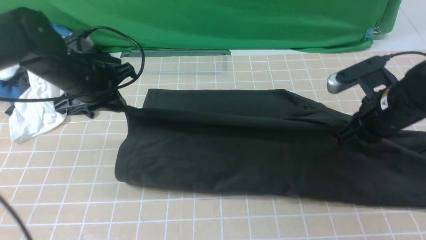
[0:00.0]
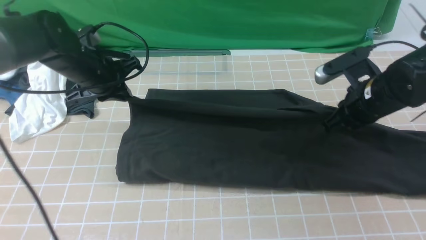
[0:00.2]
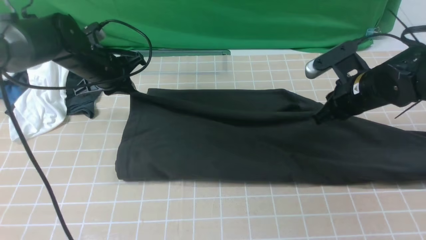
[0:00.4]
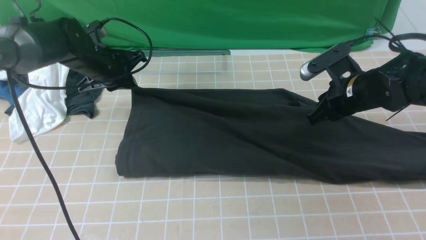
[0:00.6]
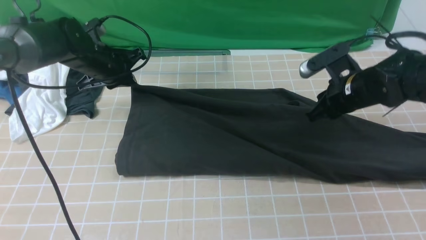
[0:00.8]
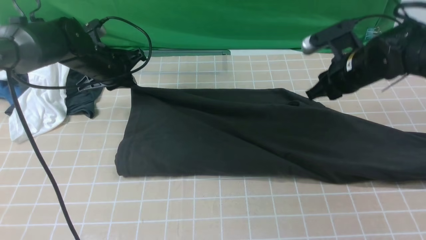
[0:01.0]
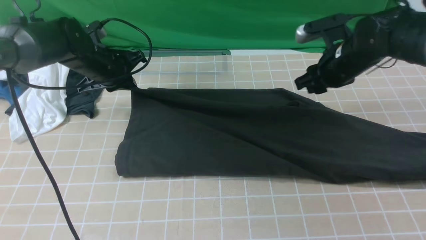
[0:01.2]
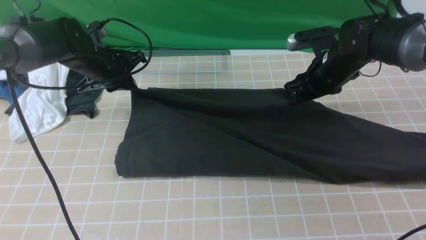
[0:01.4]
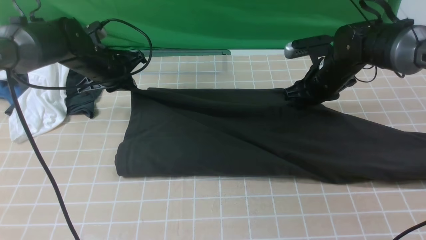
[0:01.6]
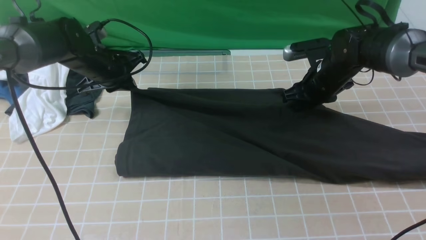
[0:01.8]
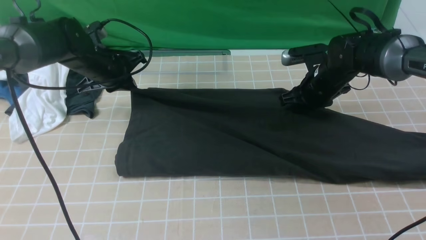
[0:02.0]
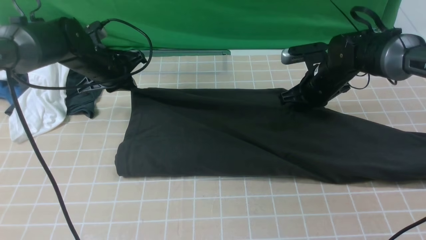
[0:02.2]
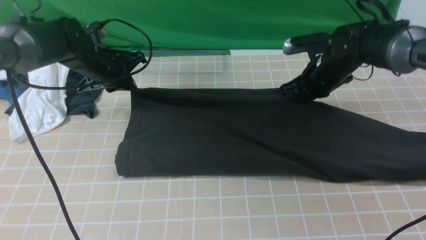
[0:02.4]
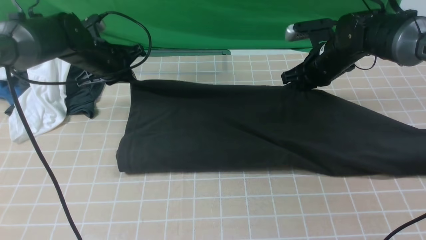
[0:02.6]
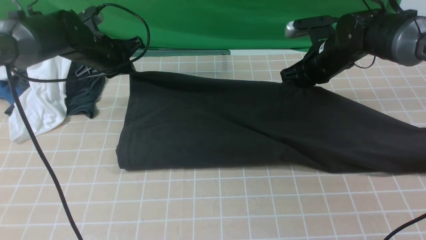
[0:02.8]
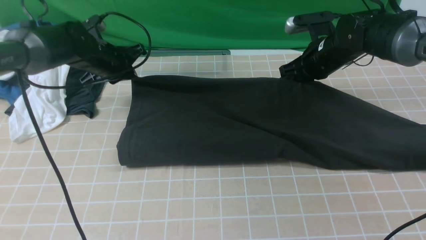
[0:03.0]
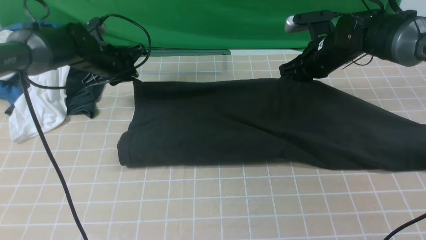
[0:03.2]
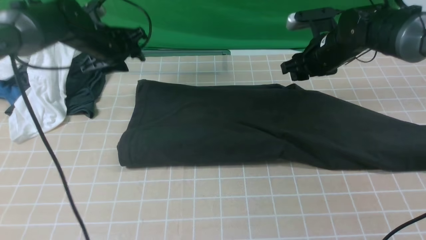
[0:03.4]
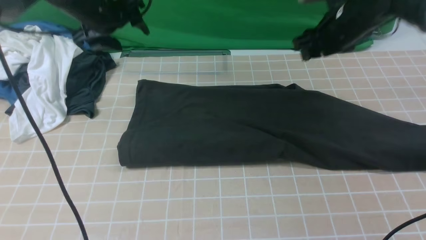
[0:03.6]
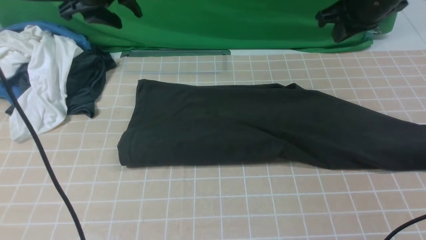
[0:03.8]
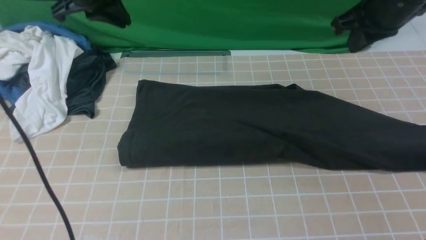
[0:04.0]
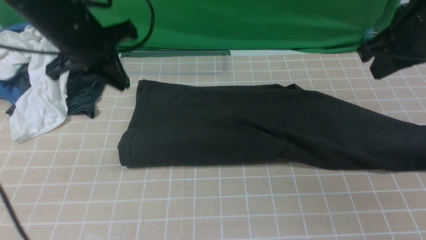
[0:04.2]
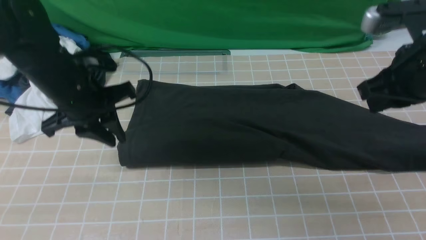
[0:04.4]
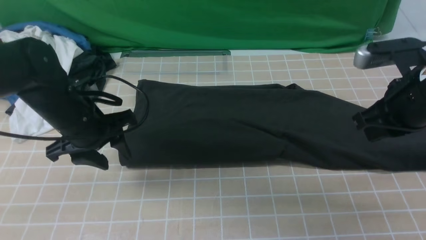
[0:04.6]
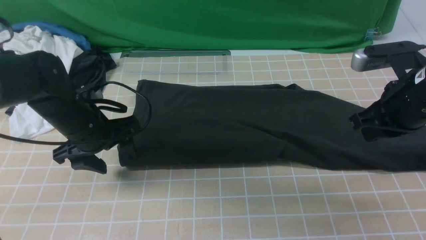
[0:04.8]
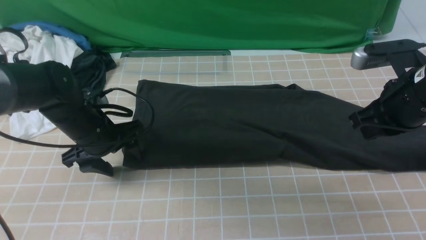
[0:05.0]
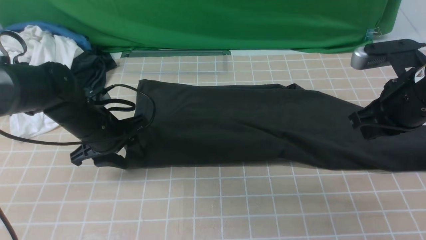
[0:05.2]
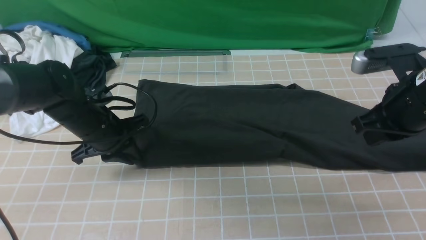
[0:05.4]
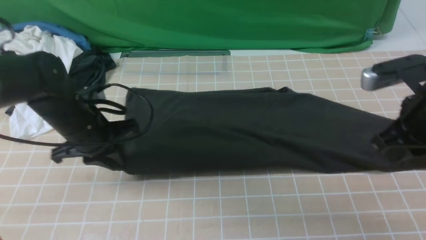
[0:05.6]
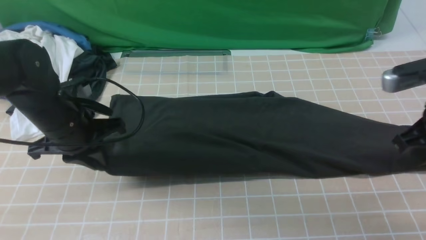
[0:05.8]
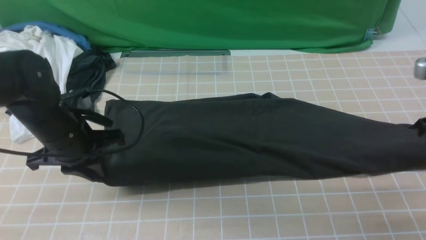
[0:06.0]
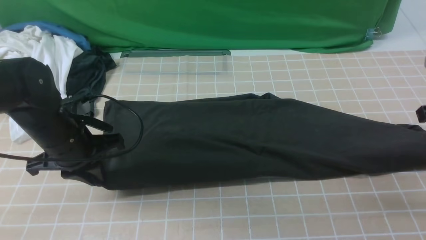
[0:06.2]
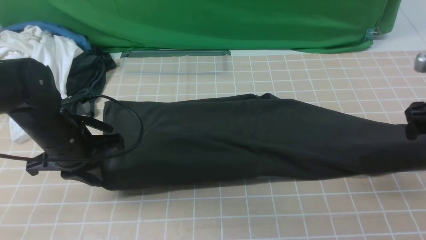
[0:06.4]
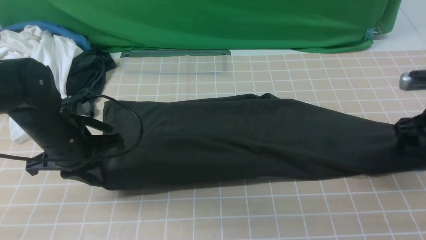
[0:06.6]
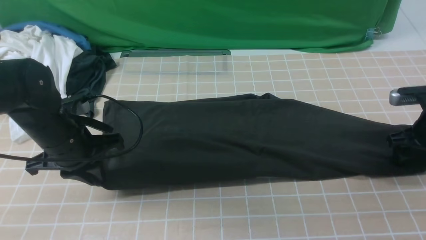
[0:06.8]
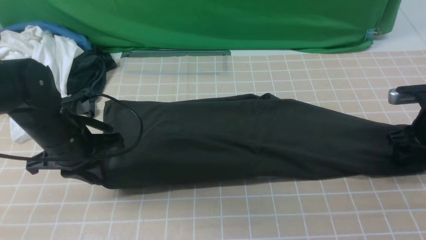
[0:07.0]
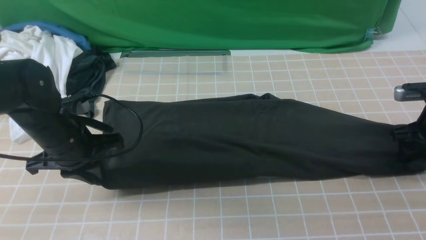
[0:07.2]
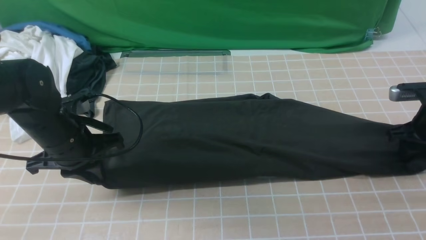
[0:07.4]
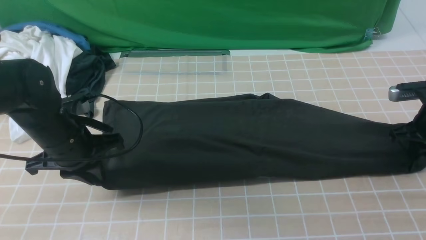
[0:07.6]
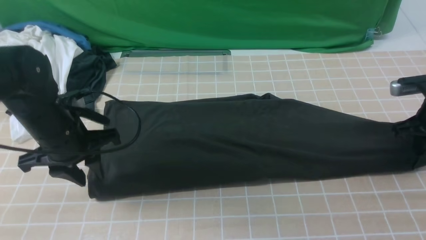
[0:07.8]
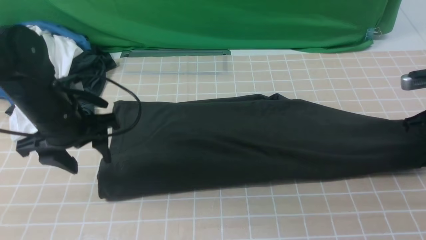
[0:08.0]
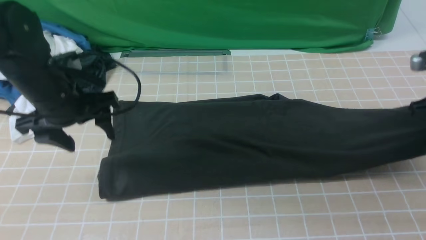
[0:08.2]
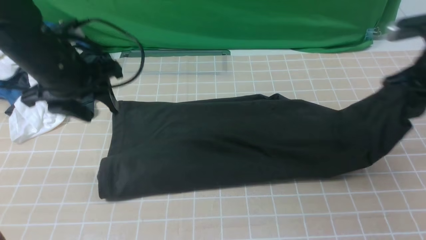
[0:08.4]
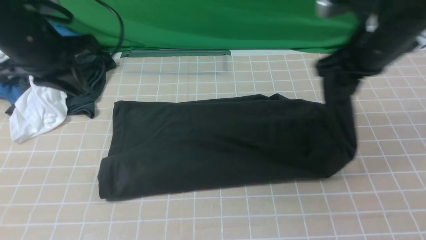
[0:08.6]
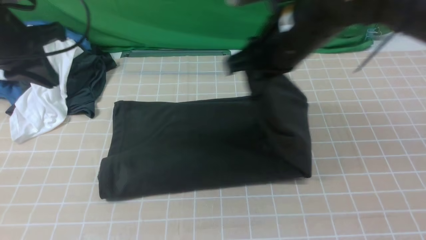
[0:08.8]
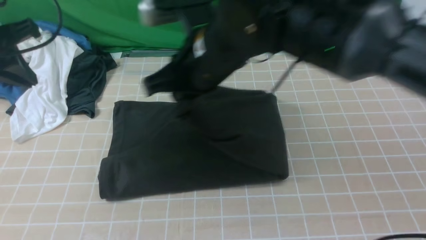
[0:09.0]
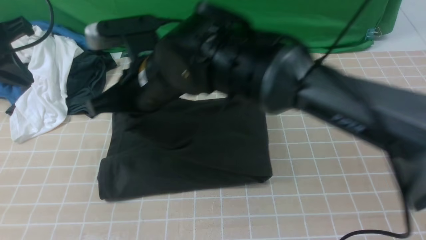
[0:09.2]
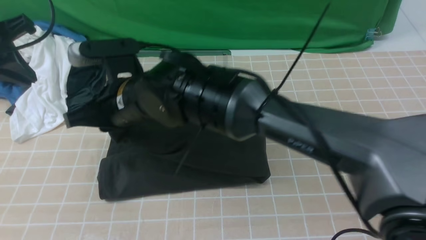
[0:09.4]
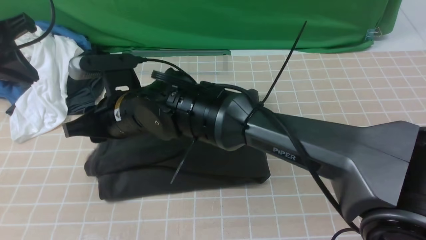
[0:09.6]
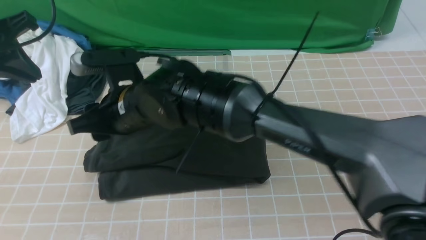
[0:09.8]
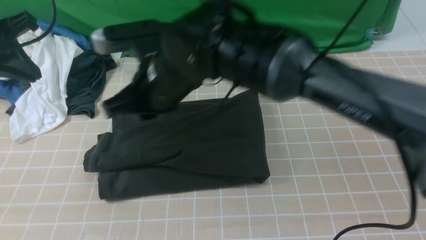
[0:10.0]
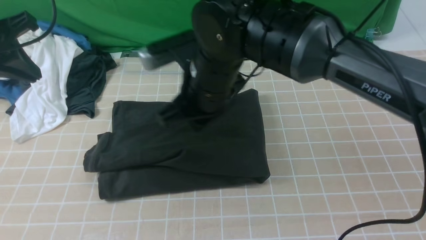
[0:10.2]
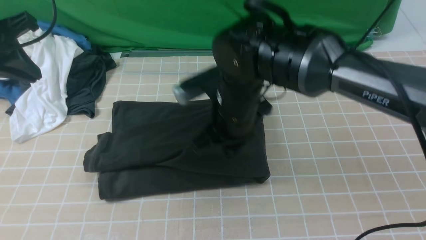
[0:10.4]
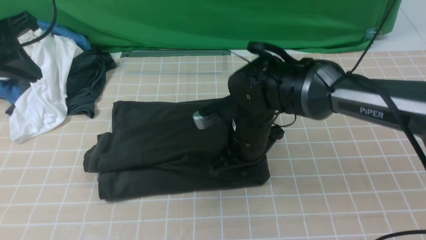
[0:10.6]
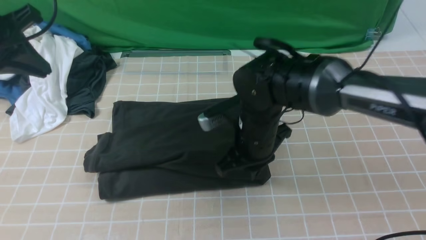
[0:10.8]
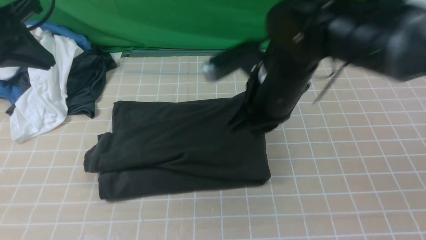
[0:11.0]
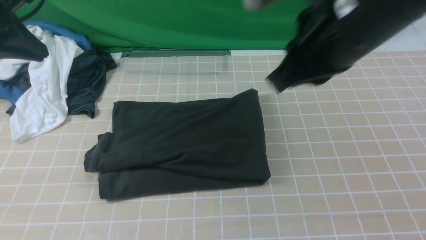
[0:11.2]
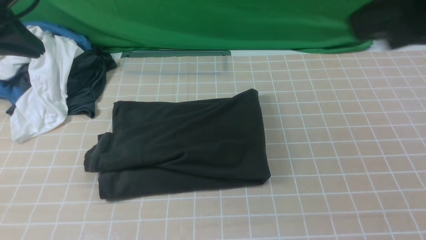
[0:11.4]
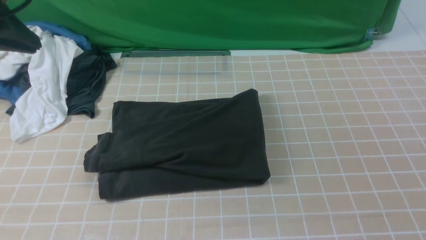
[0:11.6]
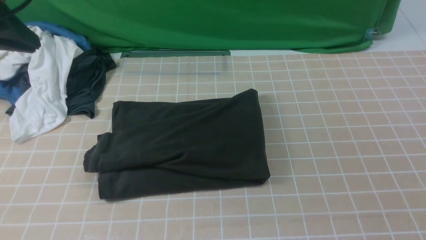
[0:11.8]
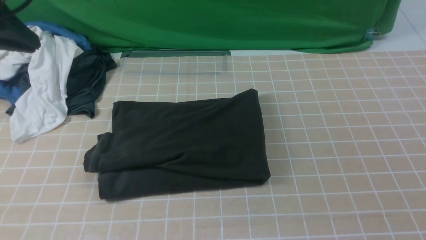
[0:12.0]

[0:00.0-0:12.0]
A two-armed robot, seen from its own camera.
Step, 0:00.0 to 0:03.2: use both arms to drag the lower edge of the fabric forward and fold it over the upper edge.
Step, 0:03.4 to 0:07.6: use the right arm to clamp the right edge of the fabric.
Step, 0:07.8 to 0:09.6: use the right arm to drag the right edge of the fabric to the left and folds it over the left edge.
0:00.0 to 0:01.6: The right gripper shifts approximately 15 cm forward, and opens; the left gripper moves forward, some 5 cm.
0:01.6 to 0:03.0: The right gripper closes.
0:03.0 to 0:04.4: Both grippers travel together backward and upward, about 15 cm. The right gripper opens and closes again, while the left gripper opens and closes again.
0:04.4 to 0:06.0: The right gripper travels to the right by approximately 5 cm, while the left gripper moves some 5 cm, and opens, then closes again.
0:06.0 to 0:07.6: The right gripper travels downward and forward by about 15 cm, and opens, then closes once more.
0:07.6 to 0:09.0: The left gripper heads upward and to the left, covering approximately 15 cm, and opens, then closes once more. Meanwhile the right gripper travels to the left and upward by some 40 cm.
0:09.0 to 0:10.4: The right gripper is displaced downward by roughly 10 cm, moves some 10 cm to the left and comes back, and opens, then closes again.
0:10.4 to 0:12.0: The left gripper travels upward by about 5 cm; the right gripper goes roughly 40 cm backward, to the right and upward.

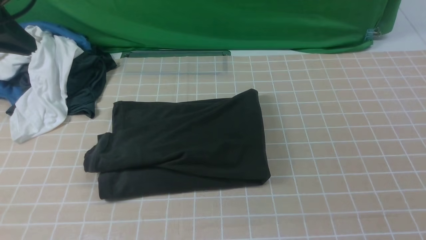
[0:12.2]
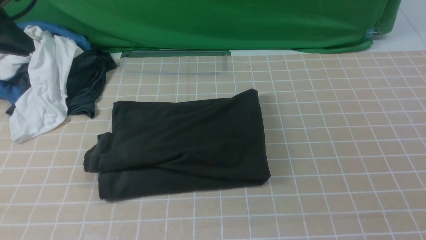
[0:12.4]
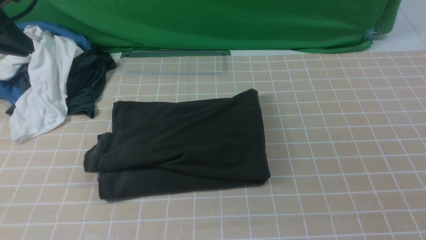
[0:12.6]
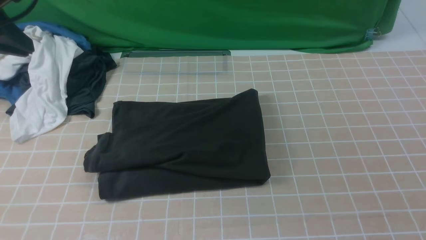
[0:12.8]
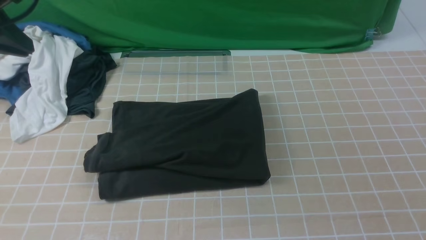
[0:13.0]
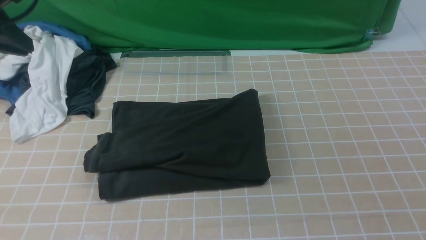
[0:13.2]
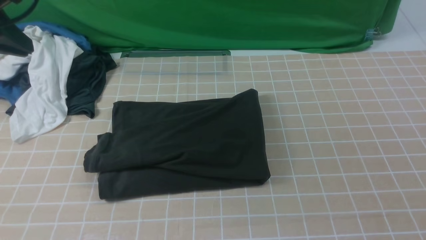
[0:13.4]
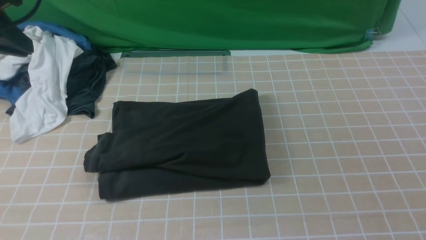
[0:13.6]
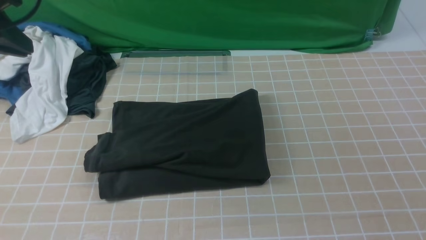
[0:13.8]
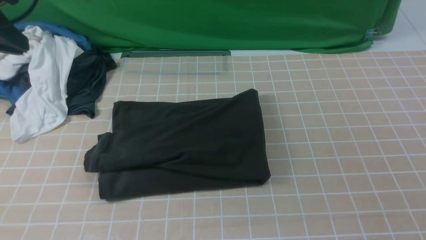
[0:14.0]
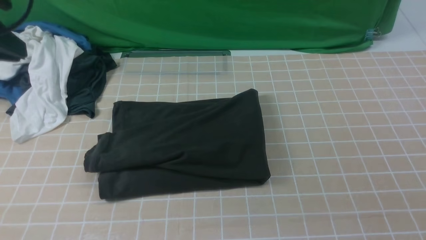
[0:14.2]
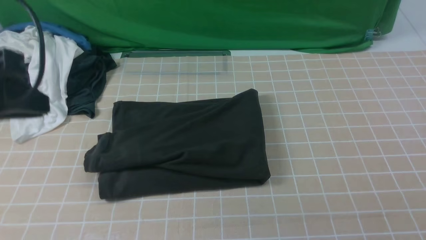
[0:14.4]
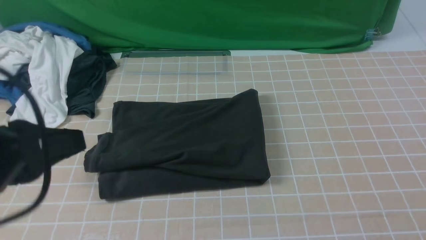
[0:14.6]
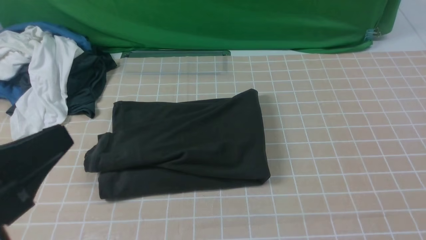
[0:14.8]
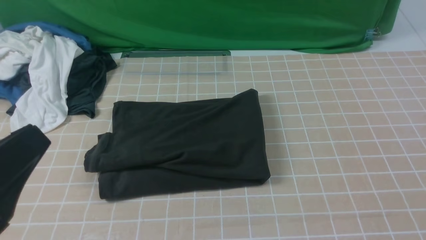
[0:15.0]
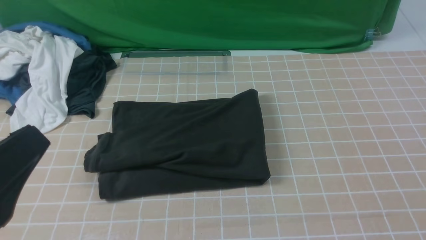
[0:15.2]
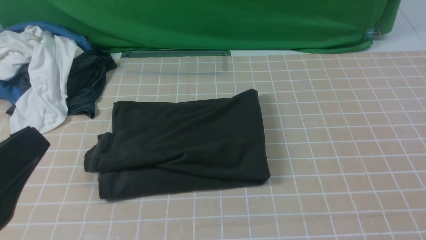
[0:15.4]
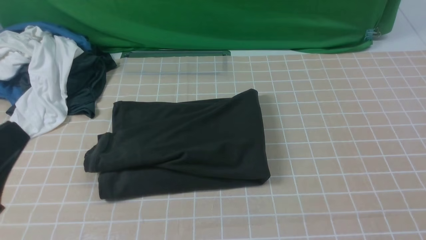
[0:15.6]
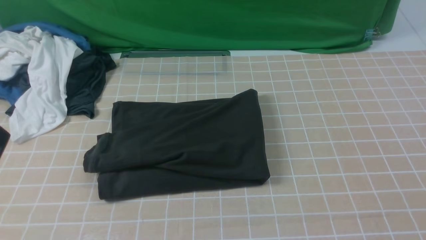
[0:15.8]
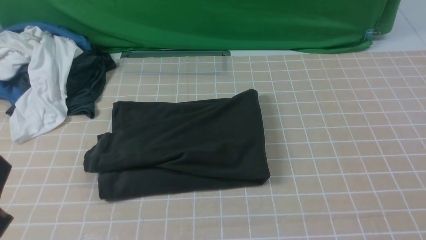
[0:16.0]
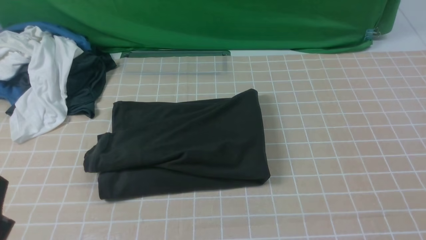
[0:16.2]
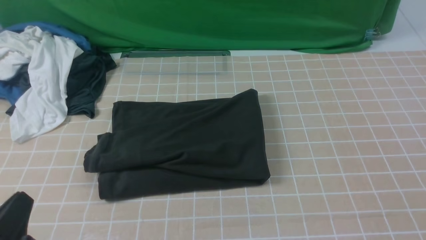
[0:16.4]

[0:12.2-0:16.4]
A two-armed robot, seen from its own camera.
0:13.6 to 0:15.0: The left gripper travels backward by roughly 25 cm.
0:15.0 to 0:16.4: The left gripper is displaced downward by roughly 10 cm.
